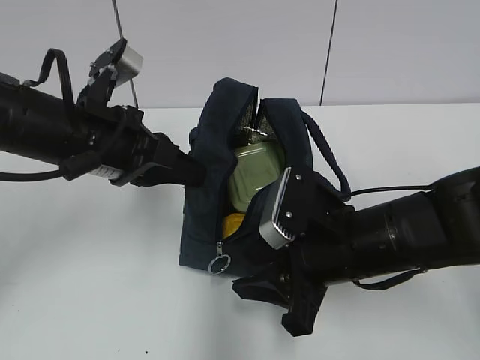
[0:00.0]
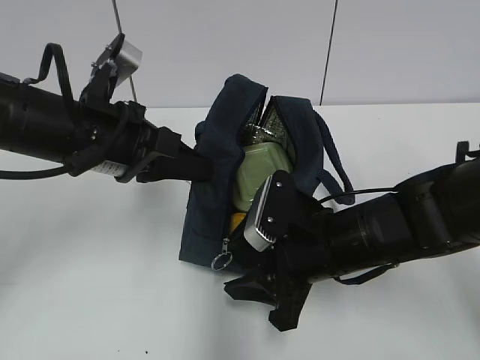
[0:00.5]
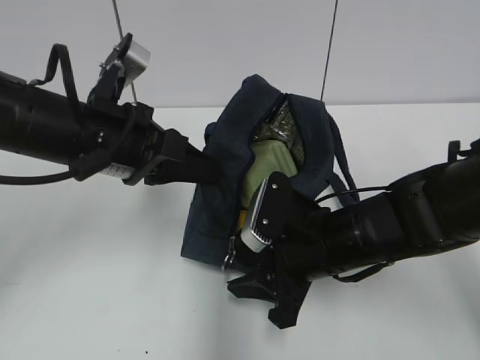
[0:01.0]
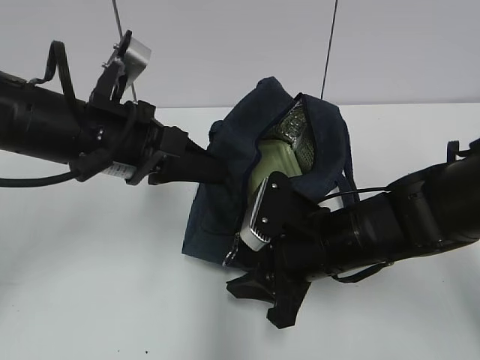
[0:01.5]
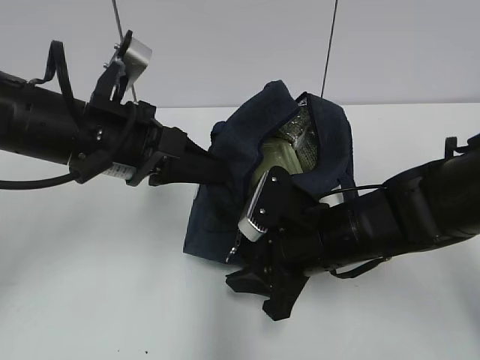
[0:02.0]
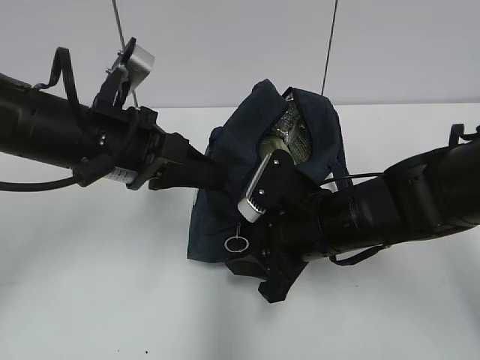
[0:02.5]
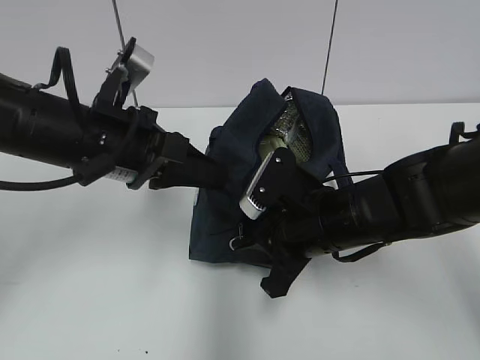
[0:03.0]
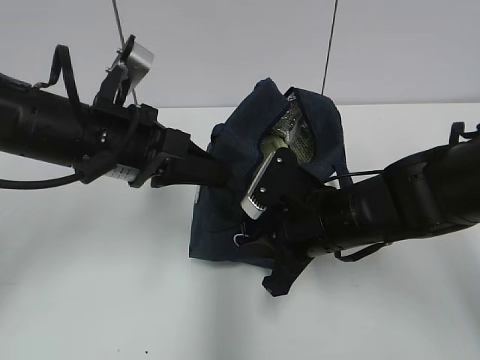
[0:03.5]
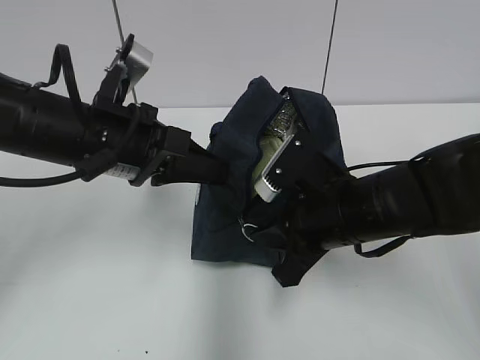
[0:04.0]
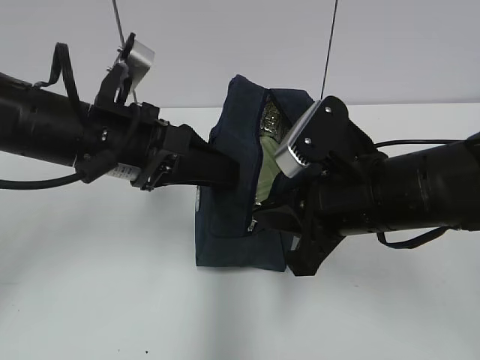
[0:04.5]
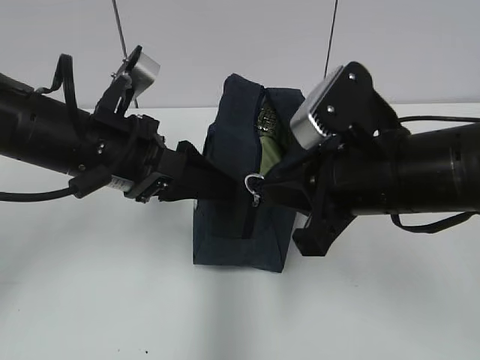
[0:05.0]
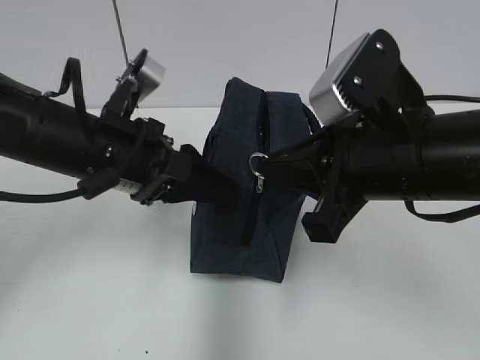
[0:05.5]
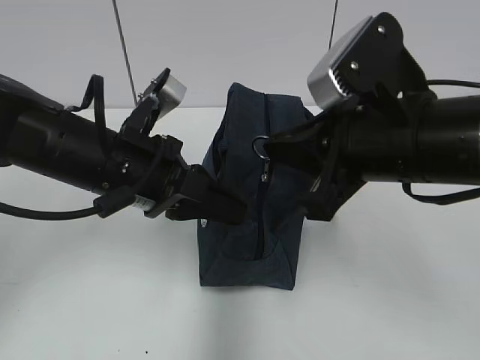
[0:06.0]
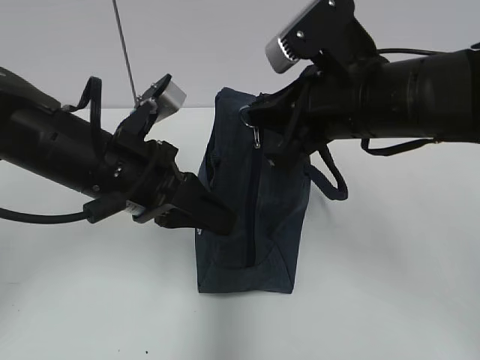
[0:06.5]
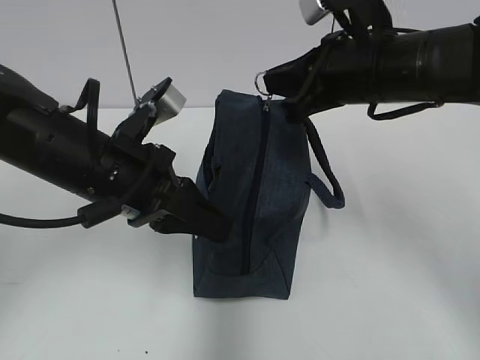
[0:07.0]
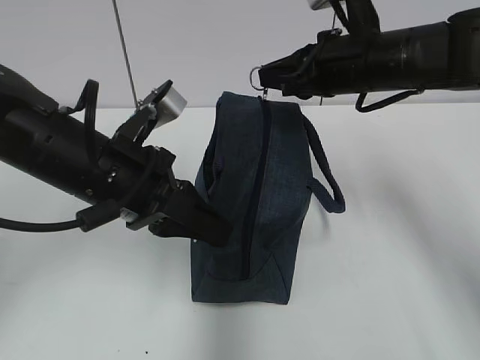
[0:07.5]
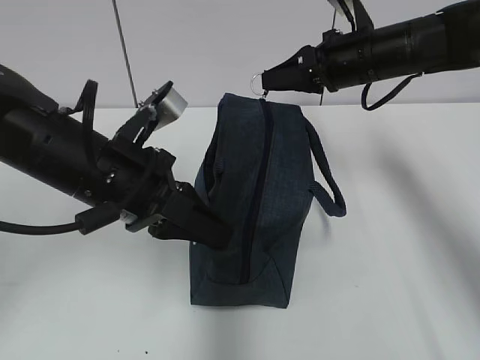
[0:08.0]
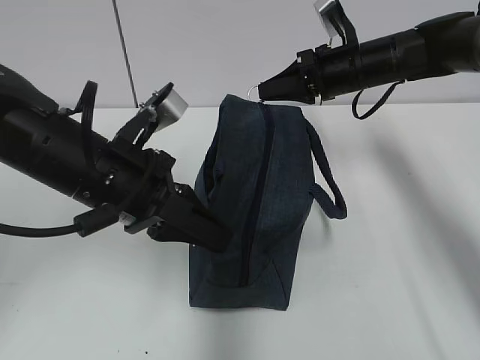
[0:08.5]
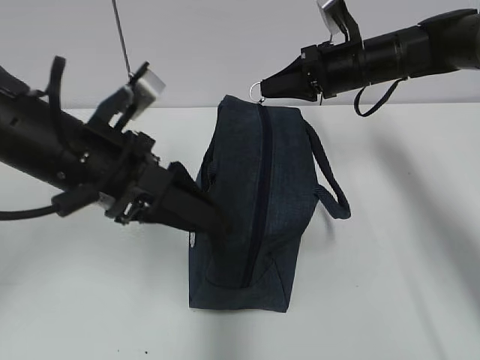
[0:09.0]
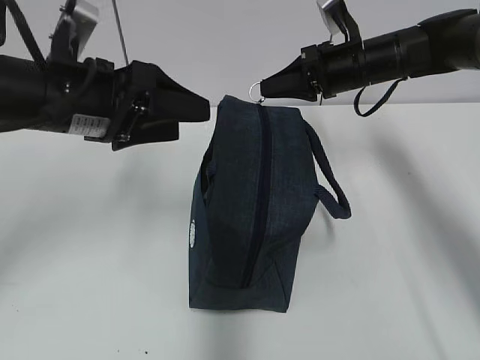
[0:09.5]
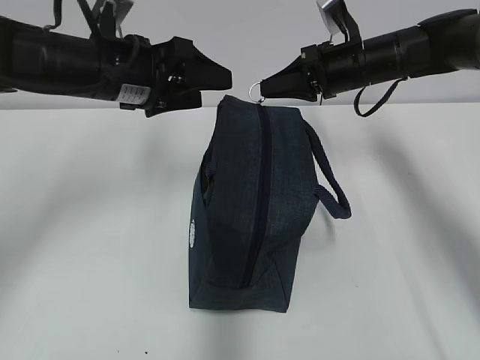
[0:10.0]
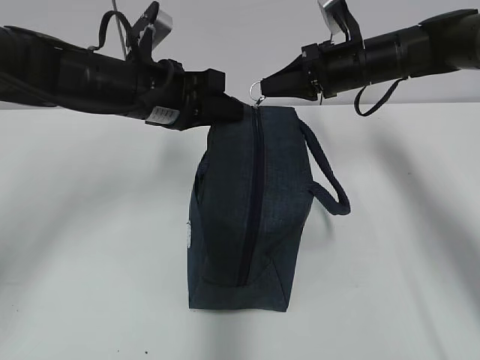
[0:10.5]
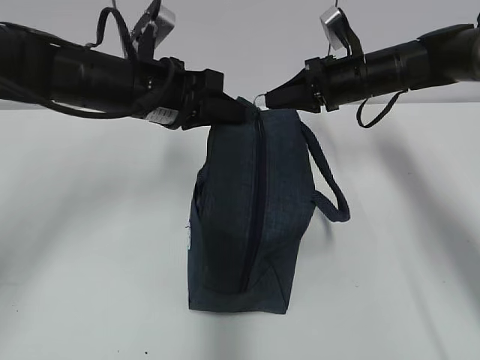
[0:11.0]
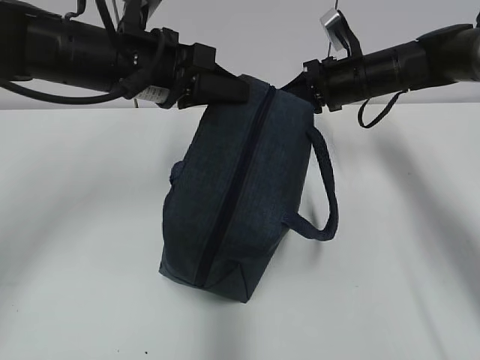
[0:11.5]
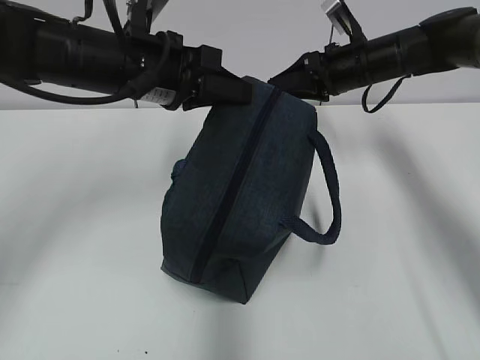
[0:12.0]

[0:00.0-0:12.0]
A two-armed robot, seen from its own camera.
Step, 0:00.5 to 0:12.0: Pull the zipper with your right hand.
0:00.0 to 0:02.0: The grippers move only a little.
0:02.0 to 0:04.0: The right gripper closes.
0:04.0 to 0:06.0: The right gripper shifts some 10 cm upward. The left gripper opens, then closes once more.
0:06.0 to 0:08.0: The right gripper moves forward, about 20 cm.
0:08.0 to 0:10.0: The left gripper shifts approximately 10 cm forward, and opens its fingers.
0:10.0 to 0:12.0: The left gripper closes up; the right gripper opens.

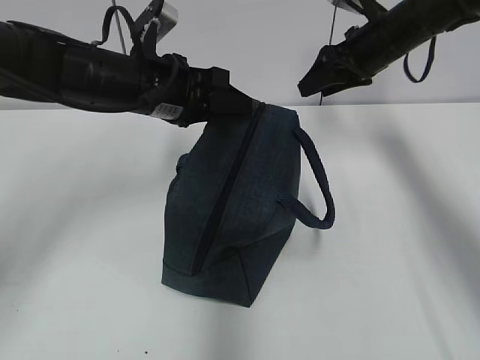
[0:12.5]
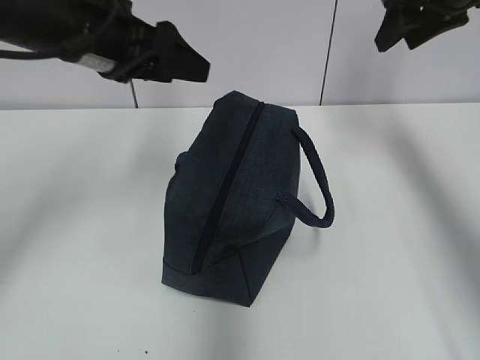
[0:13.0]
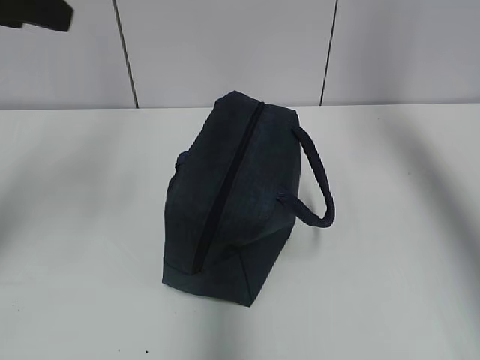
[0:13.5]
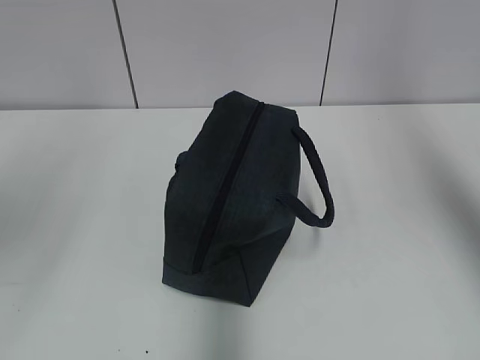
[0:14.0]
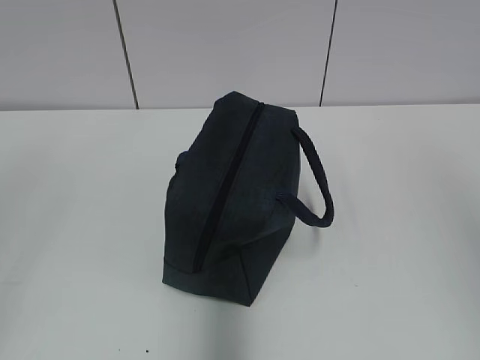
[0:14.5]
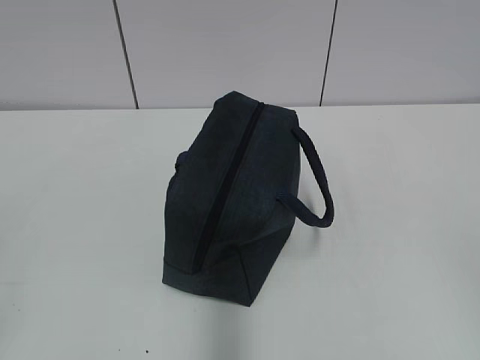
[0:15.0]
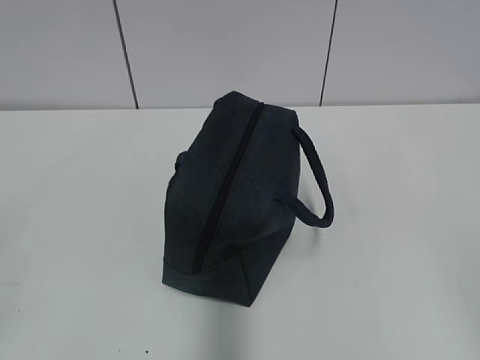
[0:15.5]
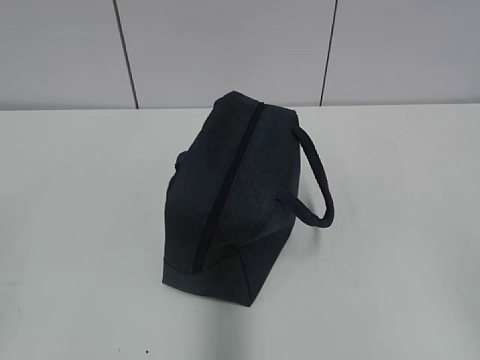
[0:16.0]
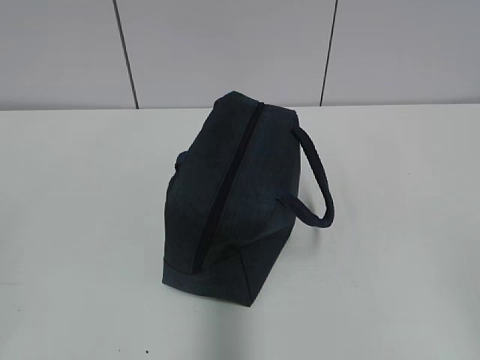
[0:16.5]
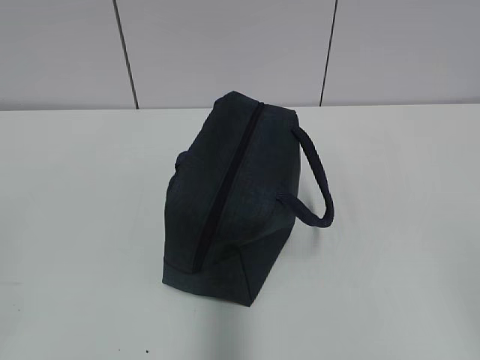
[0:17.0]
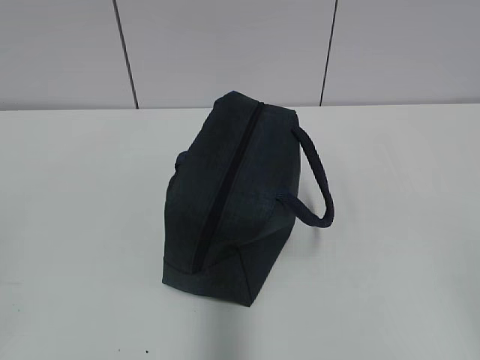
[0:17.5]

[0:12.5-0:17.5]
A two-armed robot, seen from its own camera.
0:12.5 to 0:15.0: The left gripper moves backward and to the left, about 40 cm; the right gripper heads backward, covering roughly 50 cm.
